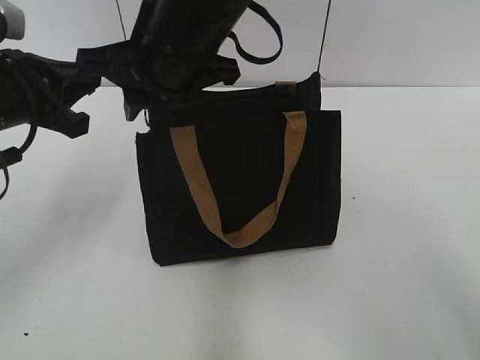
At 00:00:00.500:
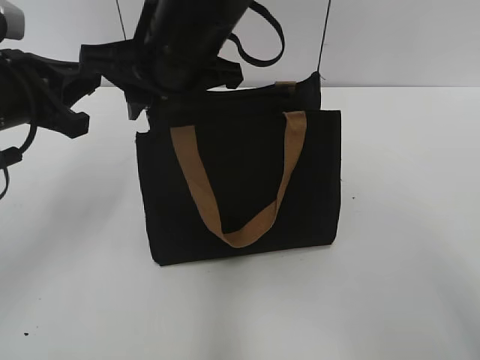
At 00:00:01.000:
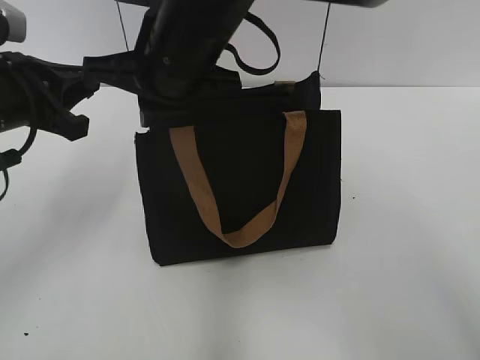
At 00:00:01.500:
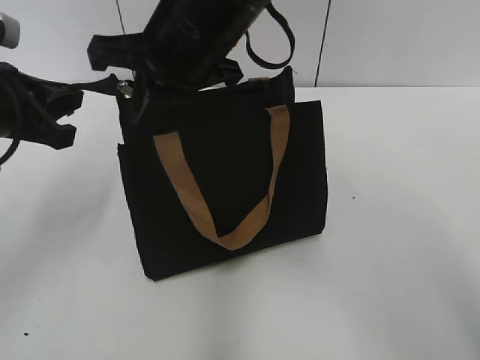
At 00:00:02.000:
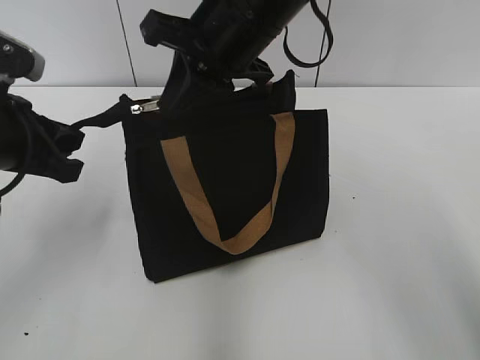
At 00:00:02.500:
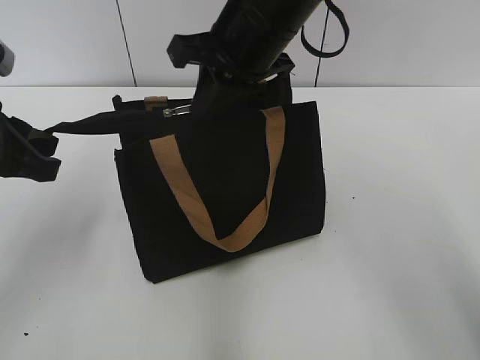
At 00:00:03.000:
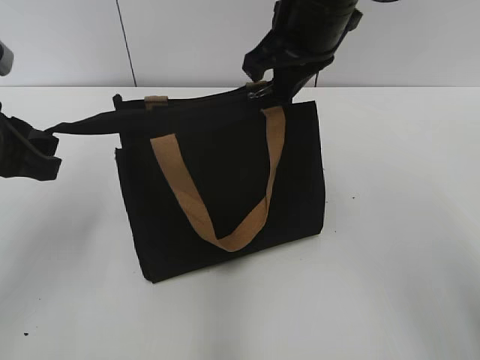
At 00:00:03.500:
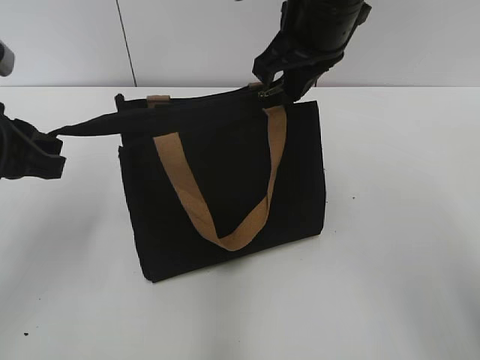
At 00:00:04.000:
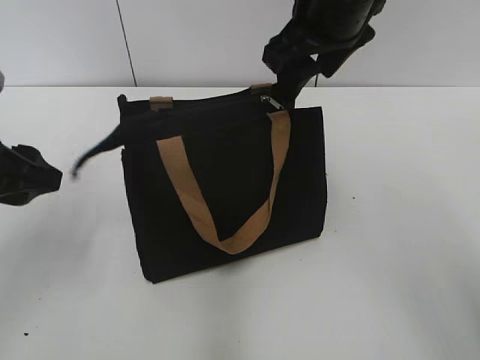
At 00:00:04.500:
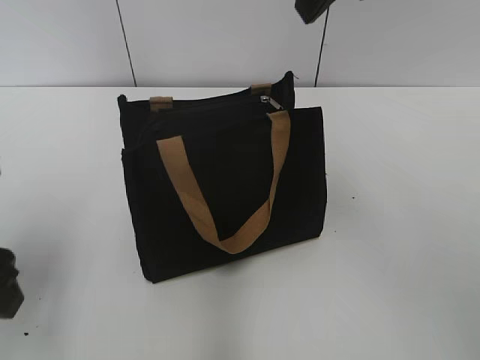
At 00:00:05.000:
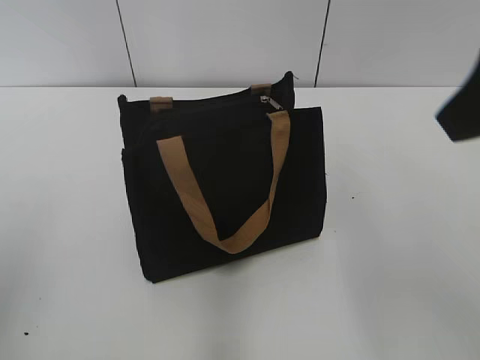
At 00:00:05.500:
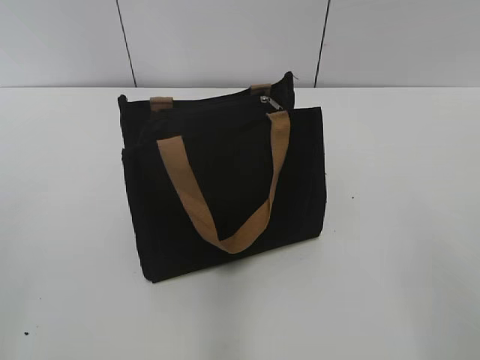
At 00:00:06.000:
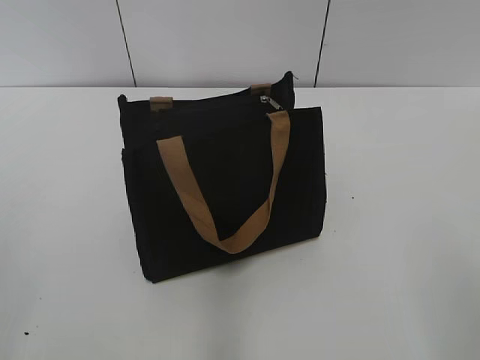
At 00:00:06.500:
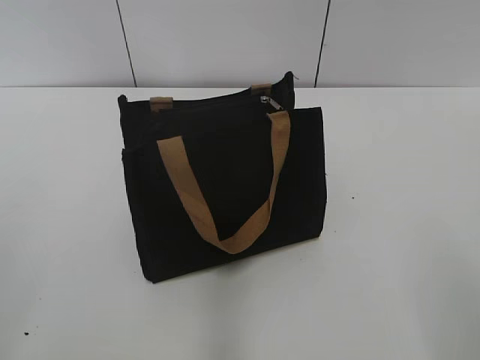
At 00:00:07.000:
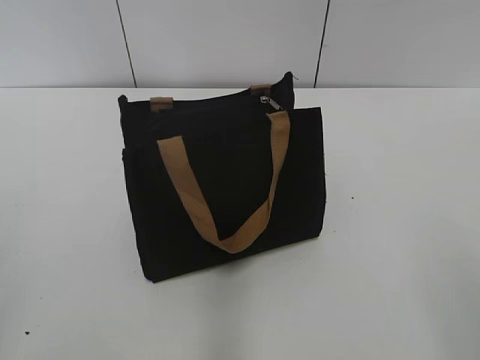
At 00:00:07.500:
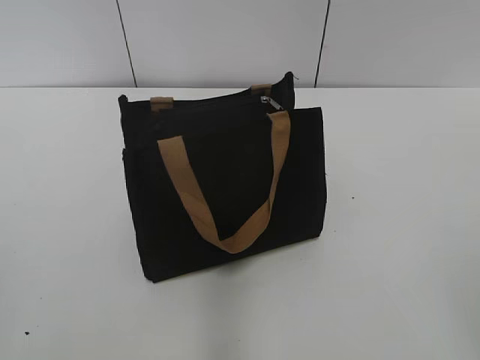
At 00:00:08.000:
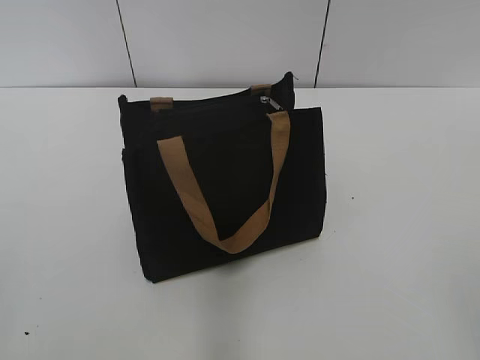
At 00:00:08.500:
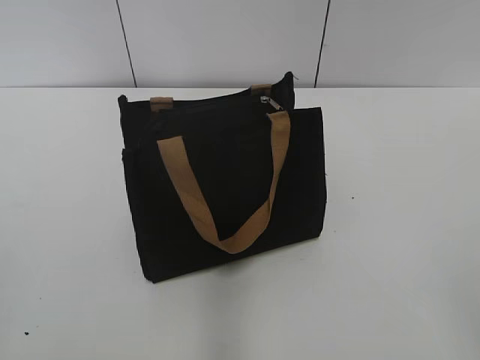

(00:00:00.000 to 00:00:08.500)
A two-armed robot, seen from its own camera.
Step, 00:00:00.000 - 00:00:03.500: Zip up the bag with your right hand.
00:00:00.000 - 00:00:02.000: The right gripper moves to the right, some 5 cm, and closes up.
00:00:02.000 - 00:00:04.000: The right gripper is displaced to the right by about 5 cm, and opens; the left gripper opens up.
00:00:04.000 - 00:00:06.500: The left gripper goes about 20 cm backward, and opens up. The right gripper heads backward and to the right, covering about 40 cm.

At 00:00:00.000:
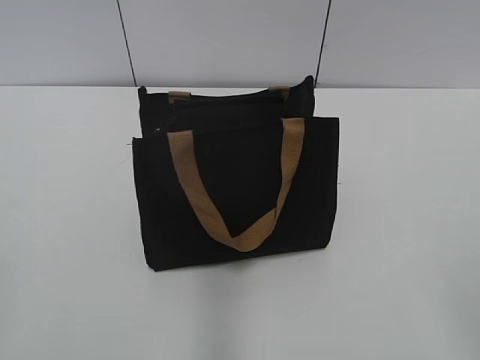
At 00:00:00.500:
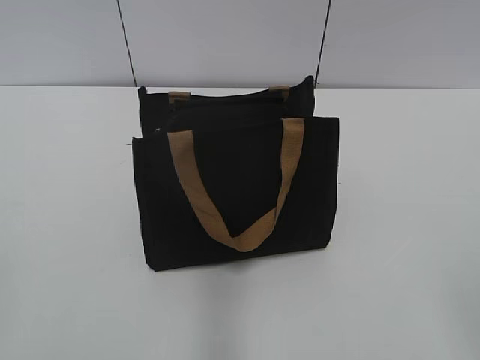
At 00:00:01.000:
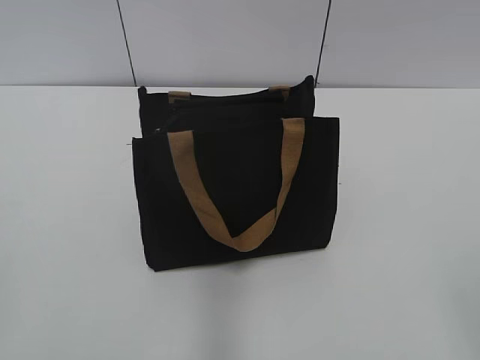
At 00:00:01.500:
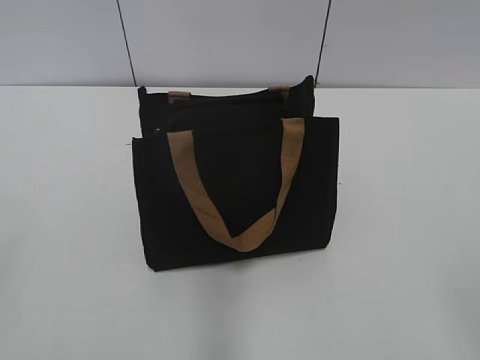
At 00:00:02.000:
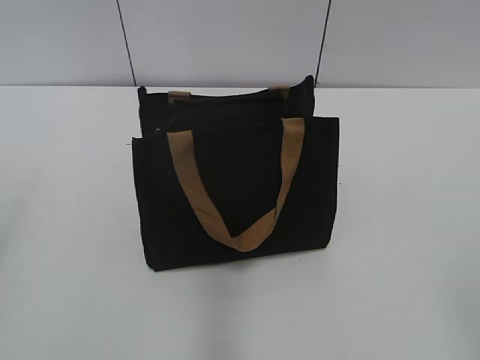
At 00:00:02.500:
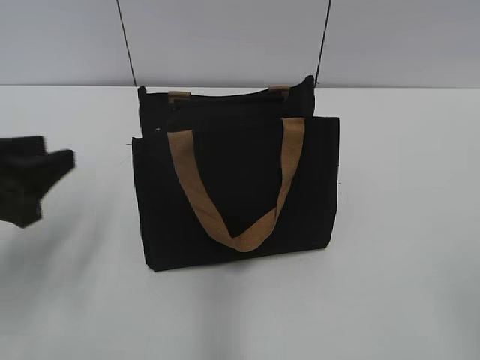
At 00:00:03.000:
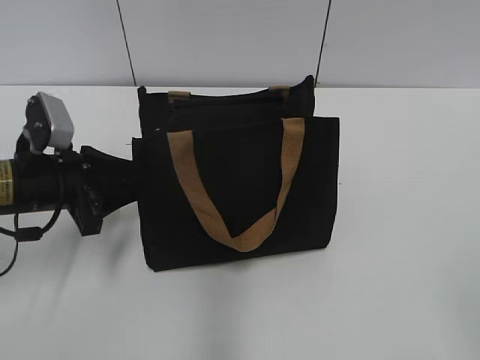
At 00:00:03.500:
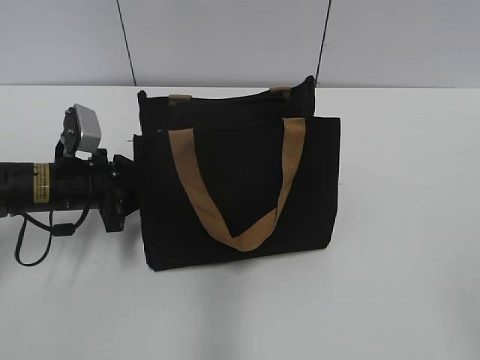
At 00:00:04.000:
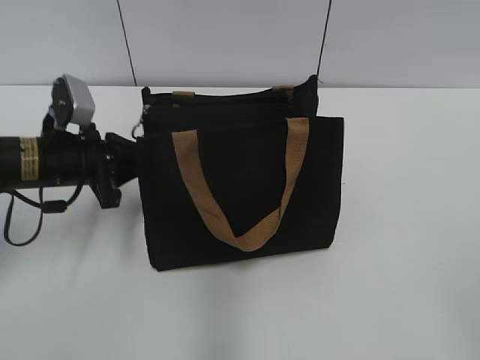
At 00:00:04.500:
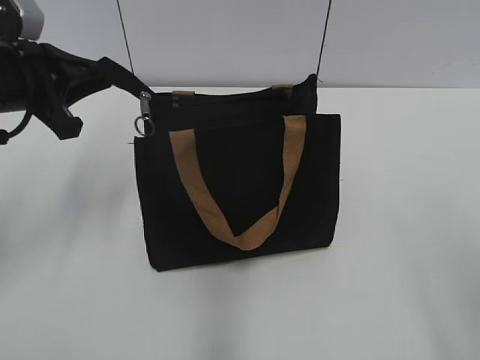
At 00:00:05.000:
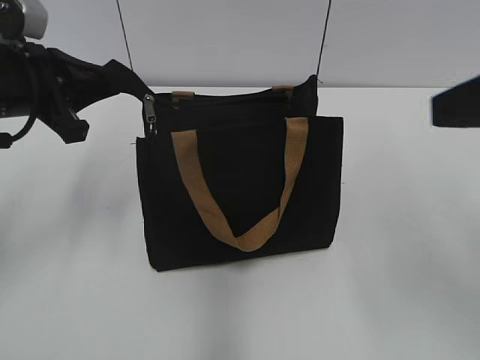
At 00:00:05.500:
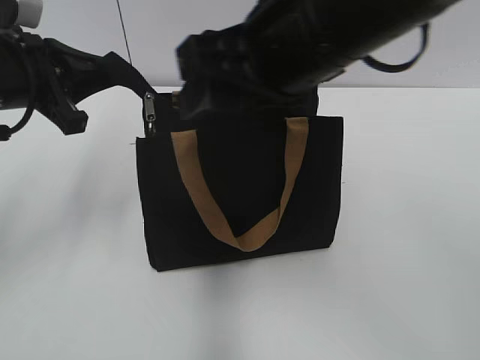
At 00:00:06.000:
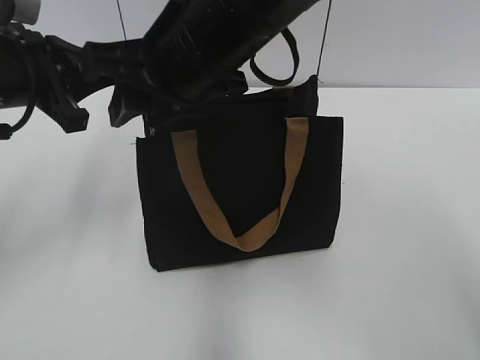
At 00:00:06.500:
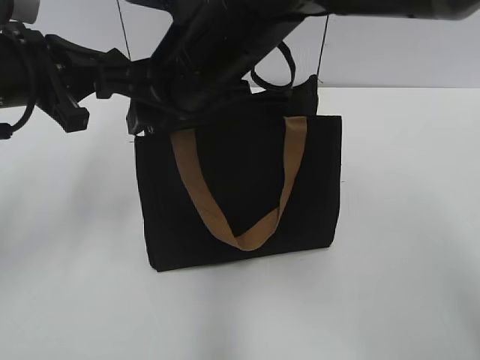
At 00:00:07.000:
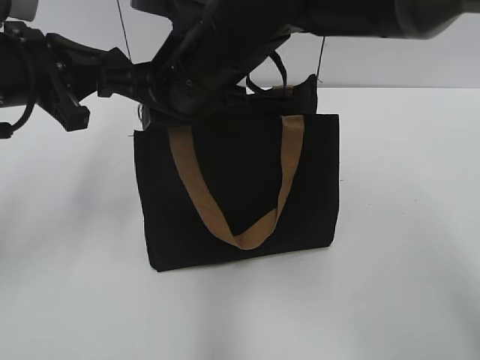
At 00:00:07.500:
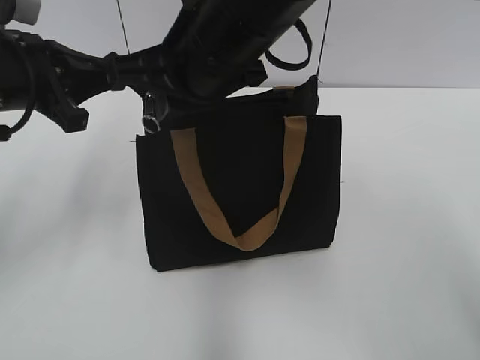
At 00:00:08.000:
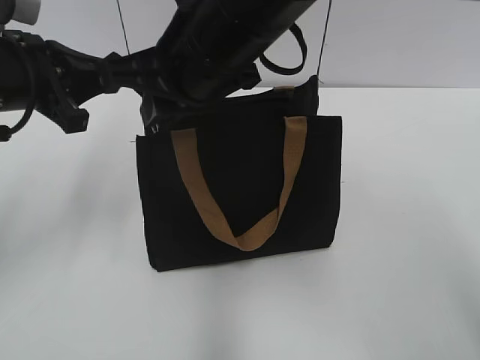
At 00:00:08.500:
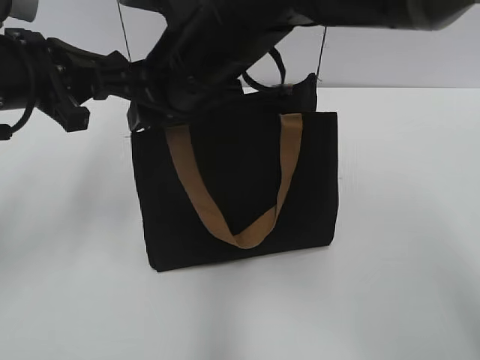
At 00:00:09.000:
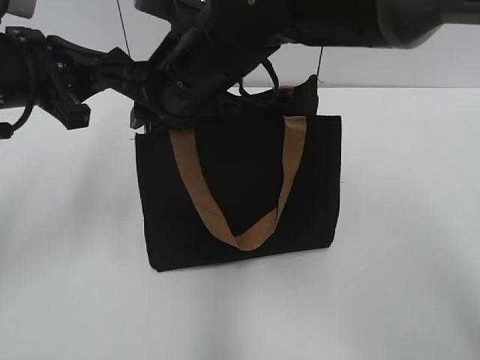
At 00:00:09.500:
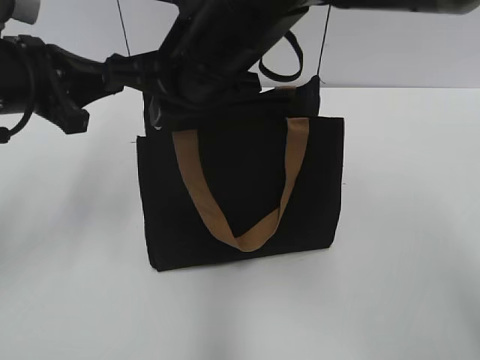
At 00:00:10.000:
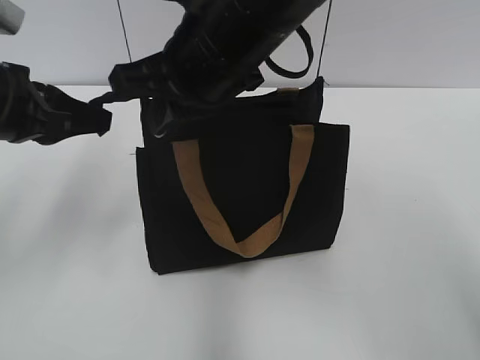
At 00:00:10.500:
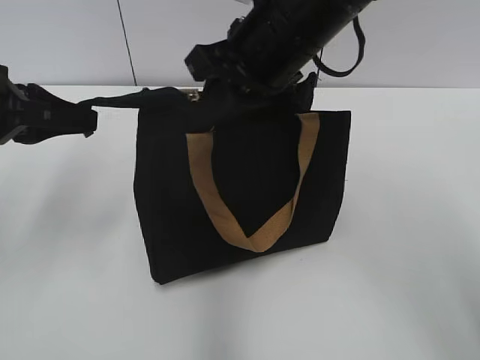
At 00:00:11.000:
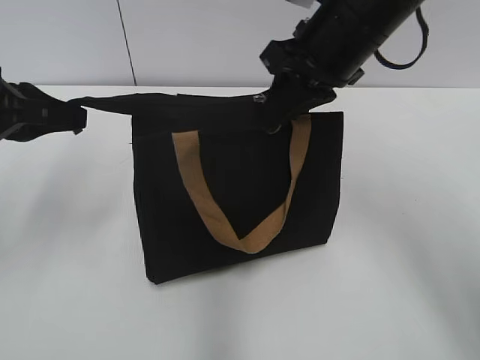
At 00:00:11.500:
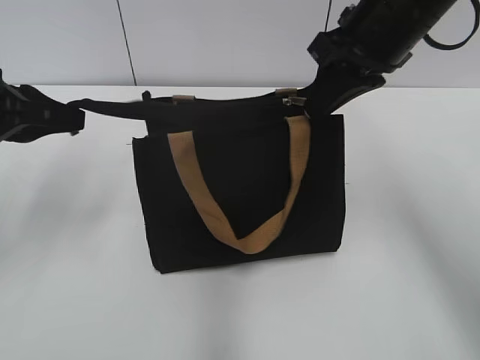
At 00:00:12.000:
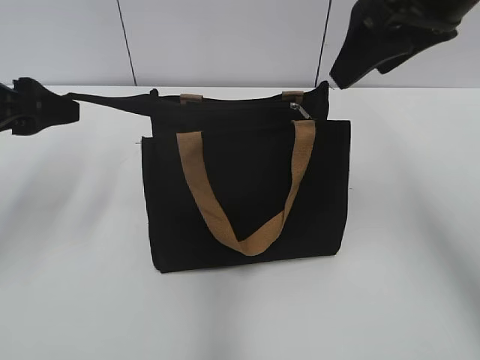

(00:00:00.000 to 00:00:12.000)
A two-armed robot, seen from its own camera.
Step, 00:00:00.000 - 00:00:11.500: Zip up the bag with your right hand.
00:00:02.000 - 00:00:04.000: The left gripper travels forward, downward and to the right by roughly 30 cm, and closes up.
00:00:04.000 - 00:00:06.000: The left gripper shifts about 10 cm upward, while the right gripper moves to the left and forward, roughly 40 cm, and closes its fingers.
00:00:06.000 - 00:00:08.000: The grippers move only a little.
00:00:10.000 - 00:00:12.000: The right gripper moves to the right, some 15 cm, and opens. The left gripper opens.

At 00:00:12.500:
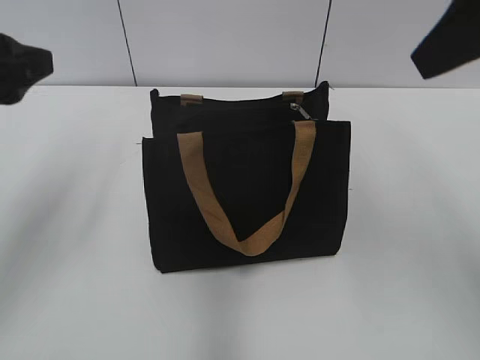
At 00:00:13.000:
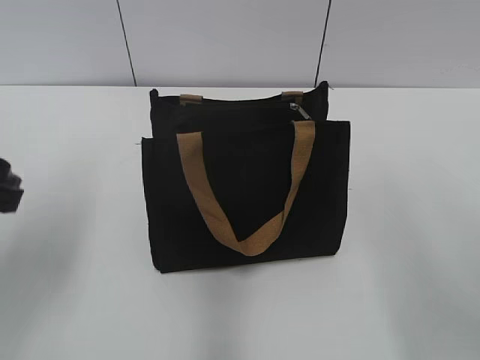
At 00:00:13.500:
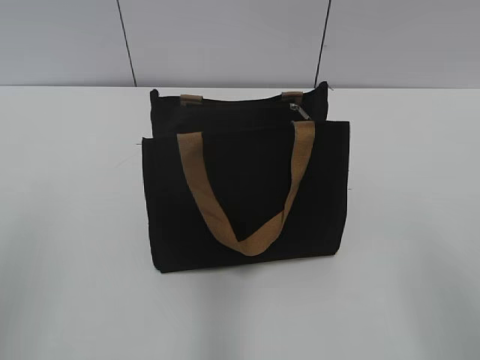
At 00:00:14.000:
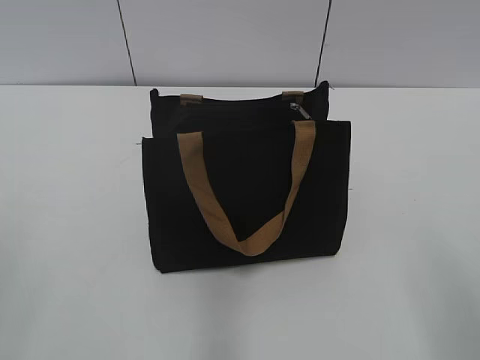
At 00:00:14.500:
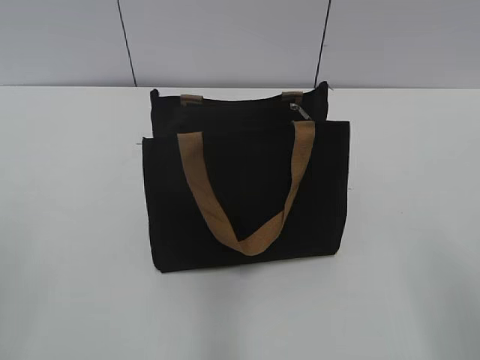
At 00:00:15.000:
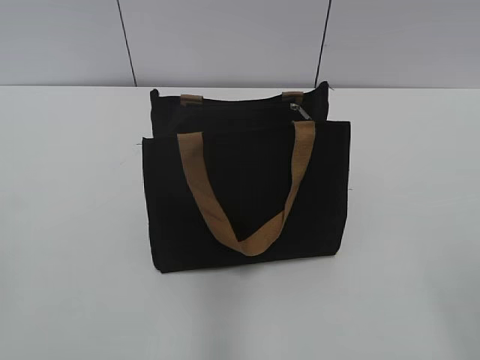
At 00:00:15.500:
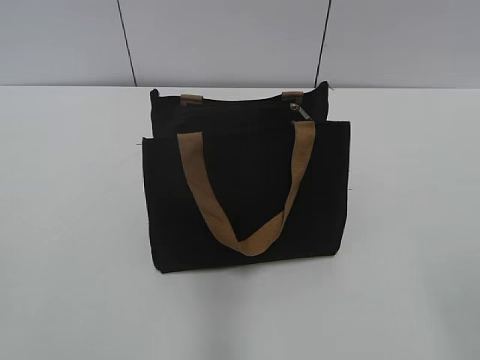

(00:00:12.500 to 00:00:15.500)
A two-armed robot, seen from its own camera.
00:00:12.500 - 00:00:14.000: The right gripper heads backward and downward, covering about 20 cm; the left gripper is displaced backward by about 20 cm.
